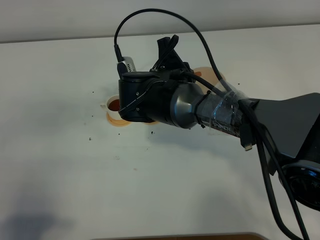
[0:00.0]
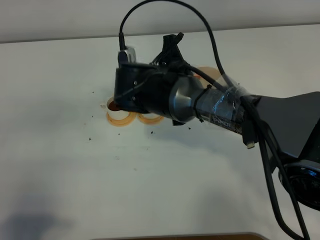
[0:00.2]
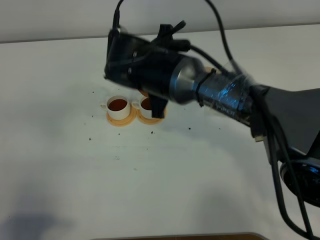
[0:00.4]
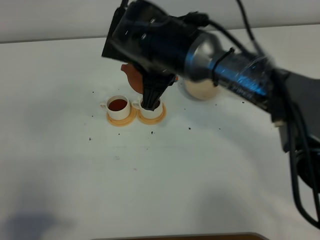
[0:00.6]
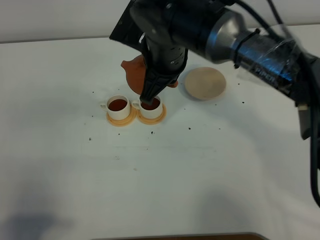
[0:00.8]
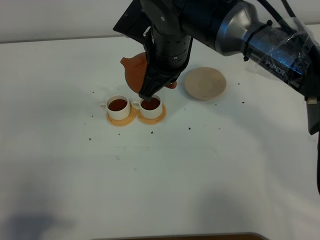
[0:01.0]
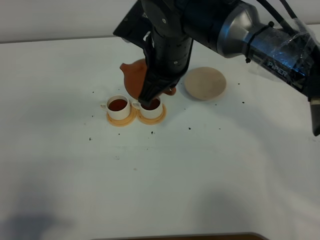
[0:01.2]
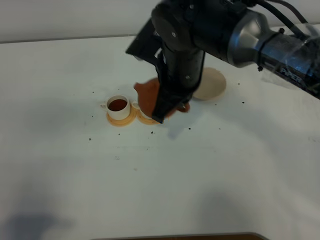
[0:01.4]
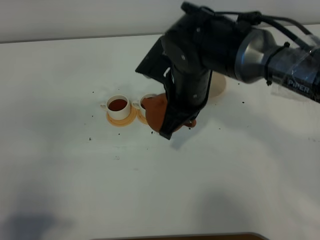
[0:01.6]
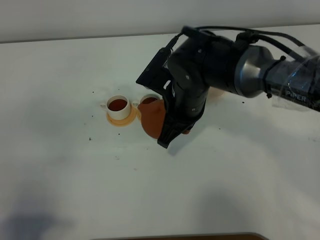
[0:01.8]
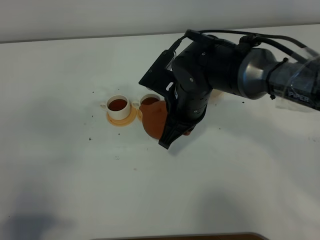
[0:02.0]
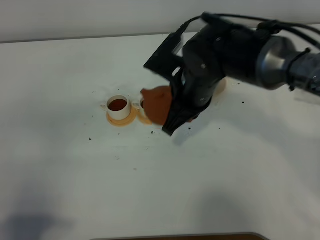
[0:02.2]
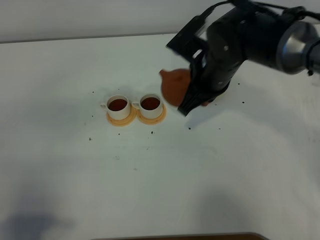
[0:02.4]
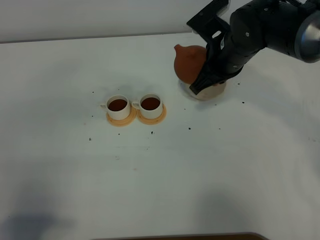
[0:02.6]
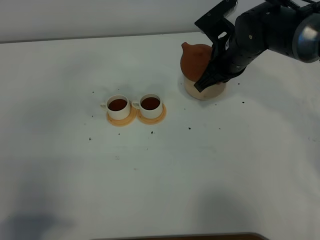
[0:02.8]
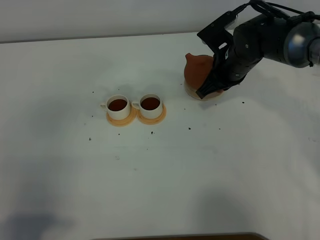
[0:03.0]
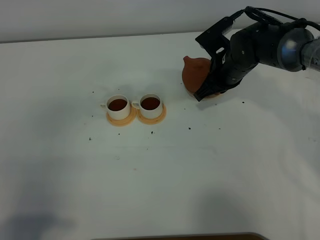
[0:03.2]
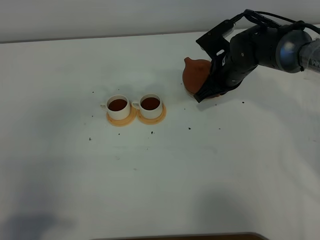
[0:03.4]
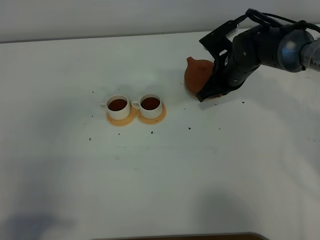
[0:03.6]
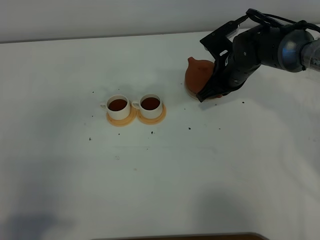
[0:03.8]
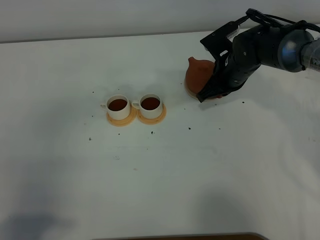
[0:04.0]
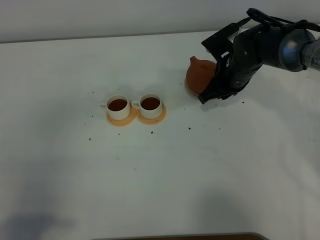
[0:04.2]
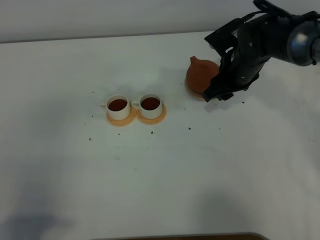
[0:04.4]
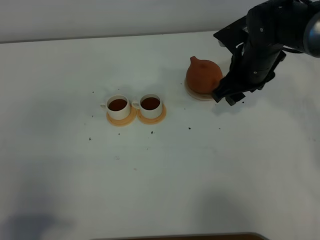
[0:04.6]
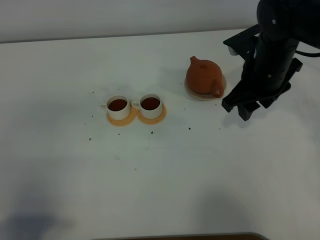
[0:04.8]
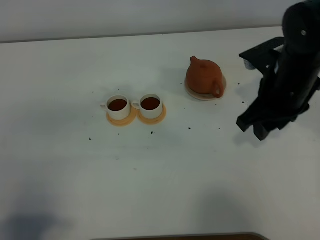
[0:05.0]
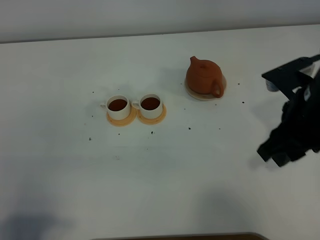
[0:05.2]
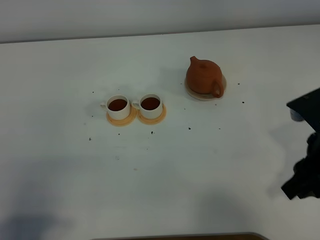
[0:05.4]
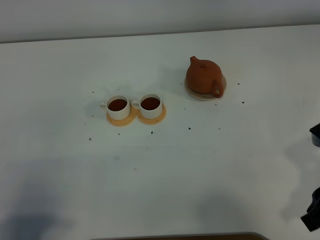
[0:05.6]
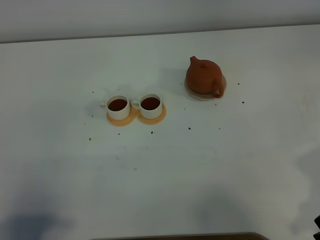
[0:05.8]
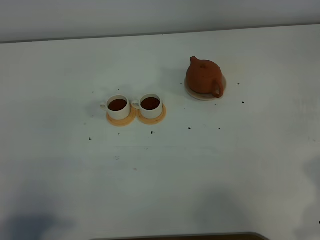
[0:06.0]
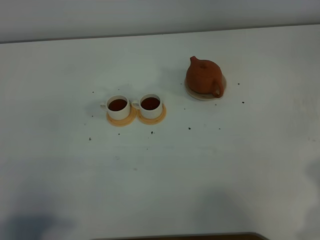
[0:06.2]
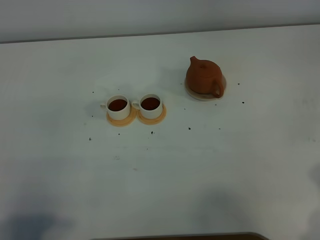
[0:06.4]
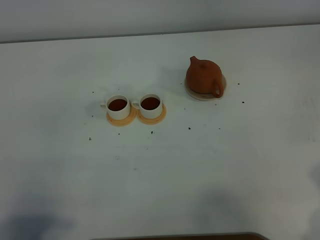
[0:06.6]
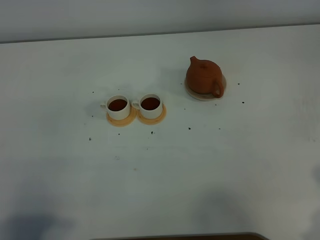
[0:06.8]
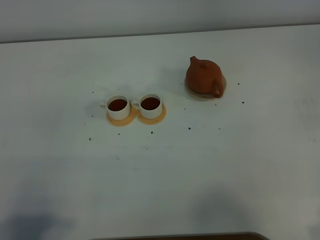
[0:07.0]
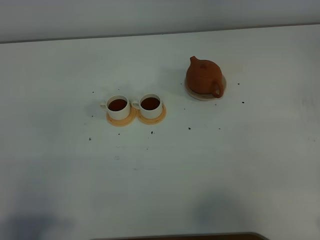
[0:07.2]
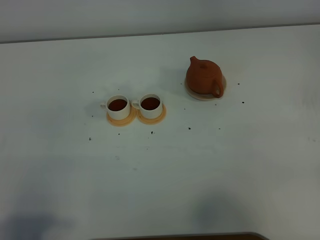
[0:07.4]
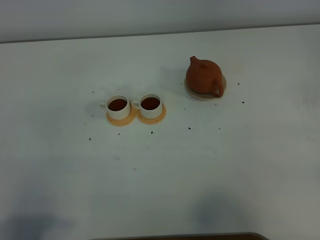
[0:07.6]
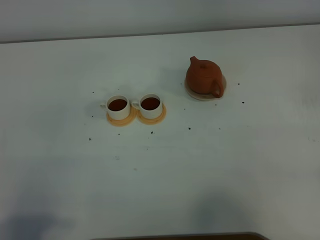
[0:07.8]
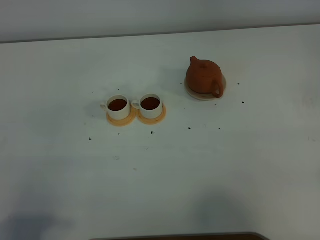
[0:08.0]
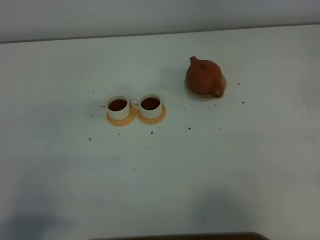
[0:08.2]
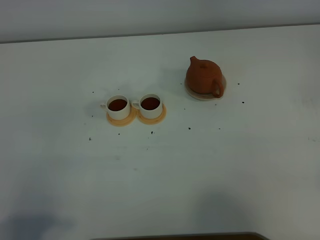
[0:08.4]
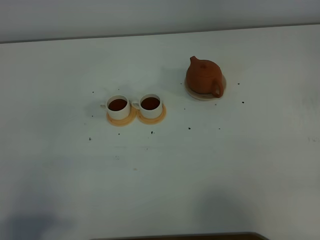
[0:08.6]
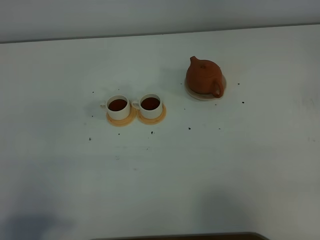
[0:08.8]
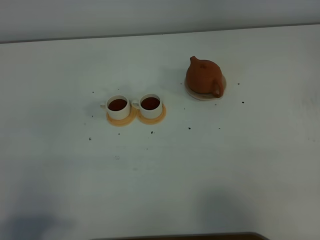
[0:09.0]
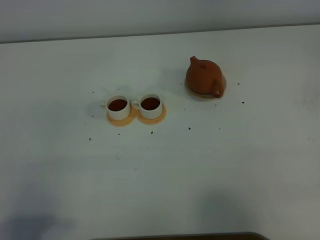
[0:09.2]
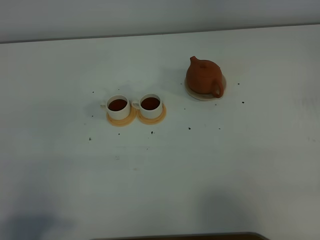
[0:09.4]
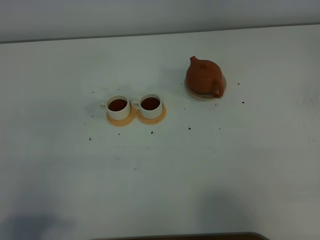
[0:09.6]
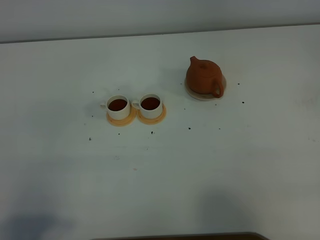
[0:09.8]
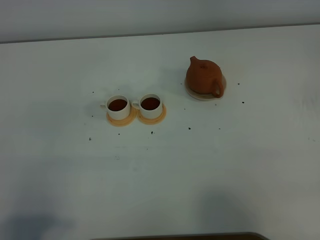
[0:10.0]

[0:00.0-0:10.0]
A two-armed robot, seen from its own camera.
Task of the whole recording: grasp the brown teapot and pour the tea into the two white teacups one by one, put the brown teapot back in its original place.
Step, 0:00.0 to 0:02.0: Pour tea into the teacup with the right gripper.
0:00.0 to 0:01.4: The right gripper goes roughly 5 cm upward.
0:01.4 to 0:02.8: The right gripper heads forward, to the right and downward, covering some 15 cm.
0:02.8 to 0:04.2: The right gripper goes approximately 5 cm downward, and opens.
0:04.2 to 0:05.8: The right gripper goes some 35 cm backward and to the right, and opens and closes again.
